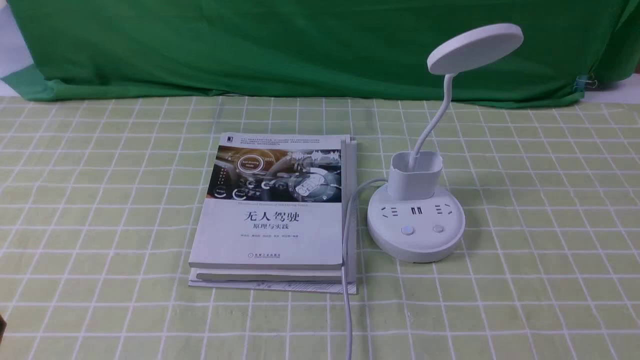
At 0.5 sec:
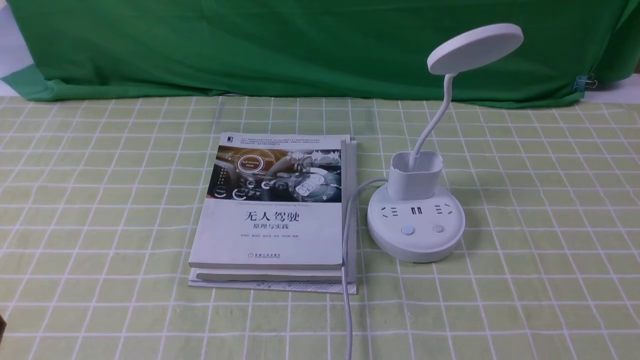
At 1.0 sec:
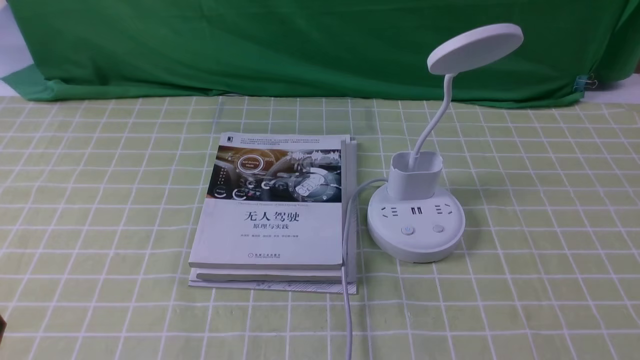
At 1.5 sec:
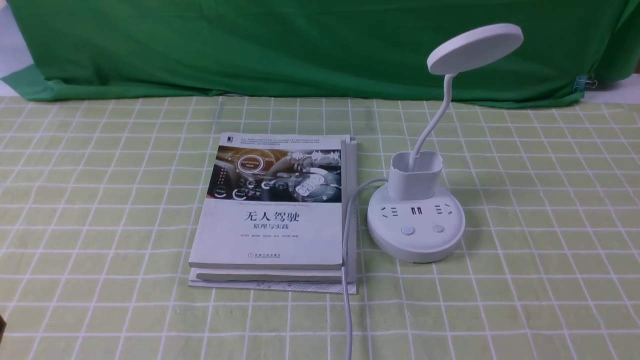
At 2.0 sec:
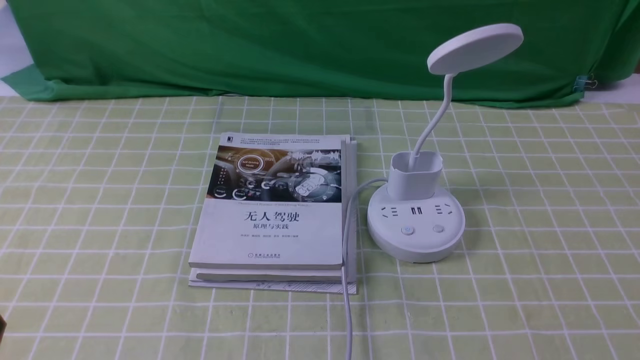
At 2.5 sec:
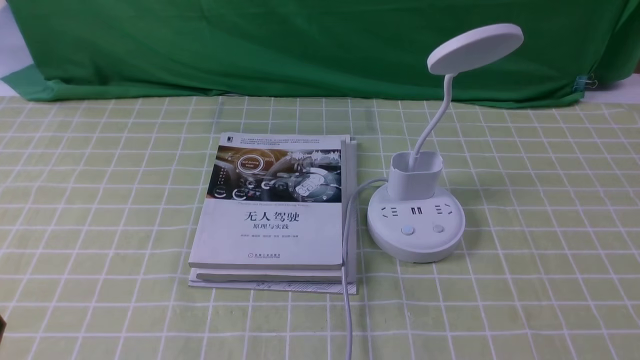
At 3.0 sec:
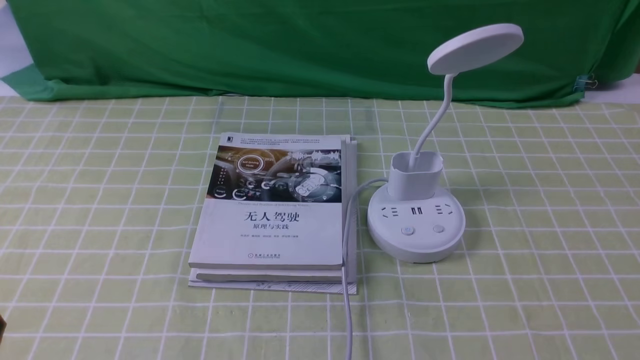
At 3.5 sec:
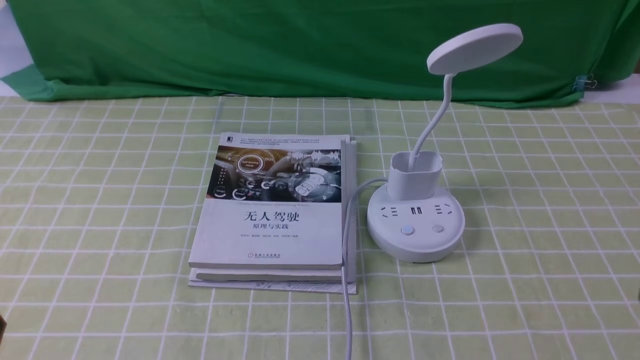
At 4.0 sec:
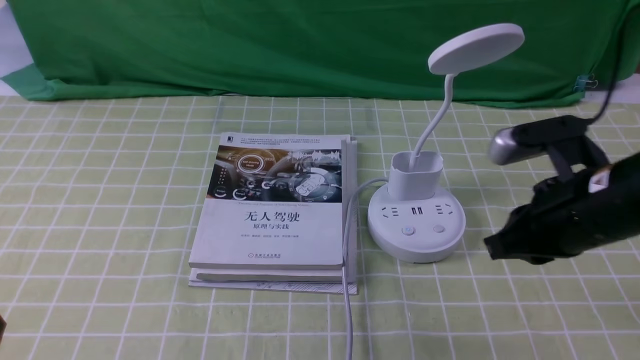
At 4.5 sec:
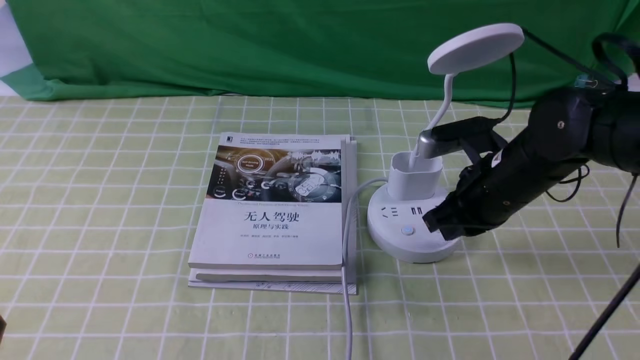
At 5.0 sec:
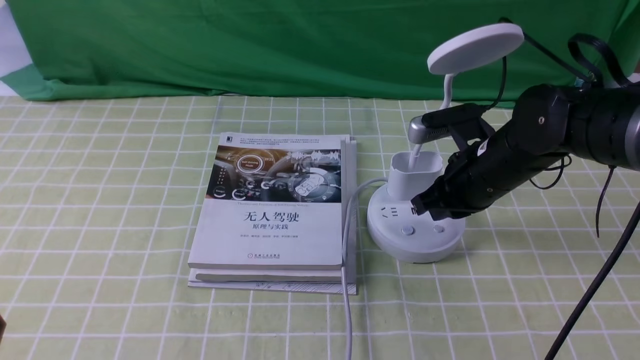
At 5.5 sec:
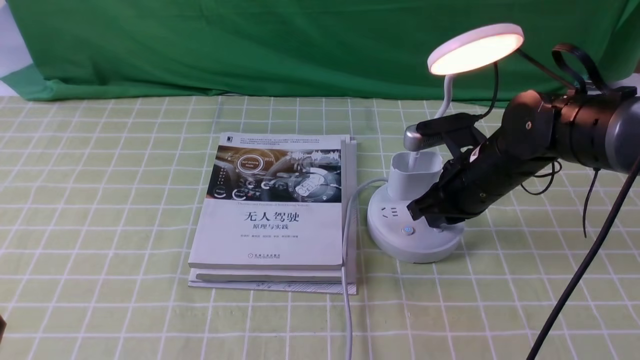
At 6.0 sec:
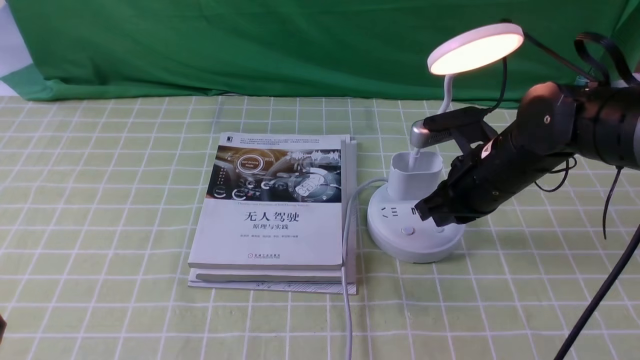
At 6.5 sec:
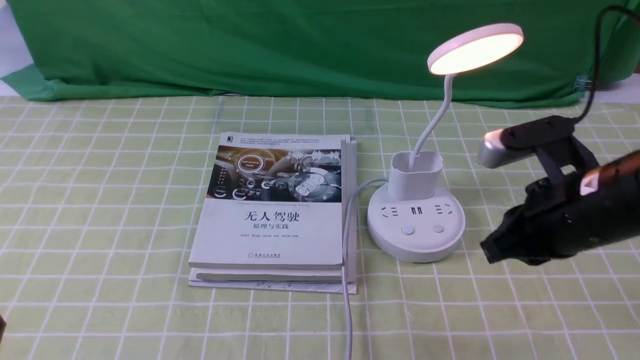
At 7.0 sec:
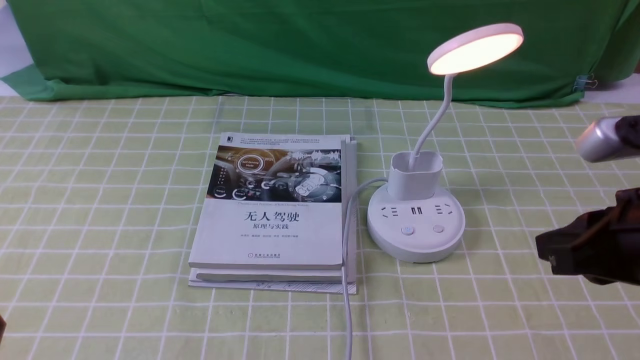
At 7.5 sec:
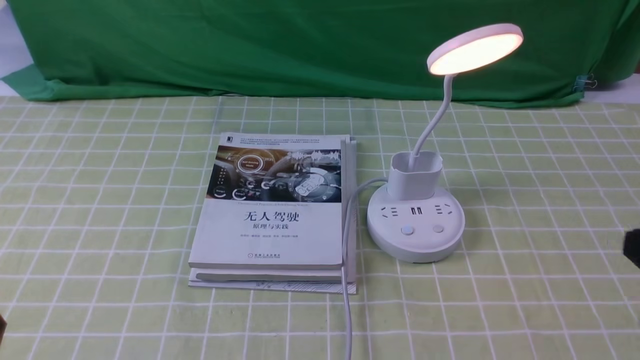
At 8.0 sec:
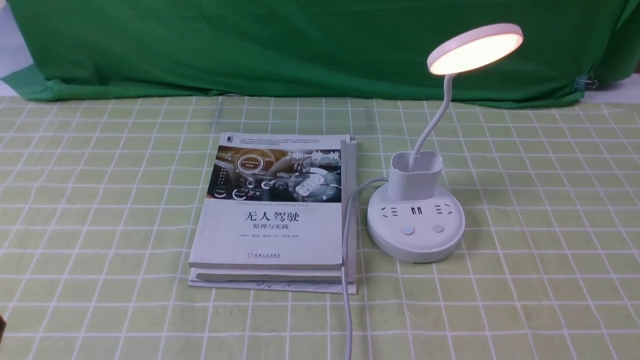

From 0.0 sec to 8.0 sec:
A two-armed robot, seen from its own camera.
Step, from 0.0 sec to 6.0 sec: use the right arm to press the button switch on the lamp holder.
From 0.0 sec to 2.0 sec: The two grippers keep their place.
From 2.0 sec to 4.0 sec: The right gripper moves forward and to the left, roughly 20 cm, and closes up.
From 4.0 sec to 6.0 sec: The right gripper heads forward and downward, covering roughly 10 cm.
From 6.0 sec to 8.0 sec: The right gripper is displaced backward and to the right by roughly 30 cm.
